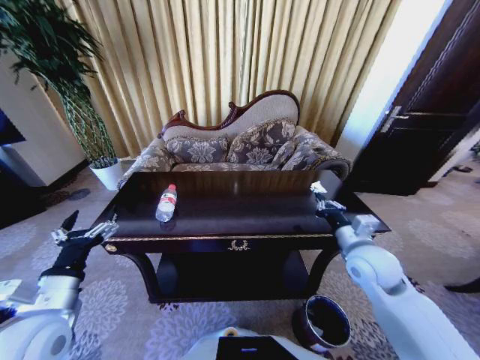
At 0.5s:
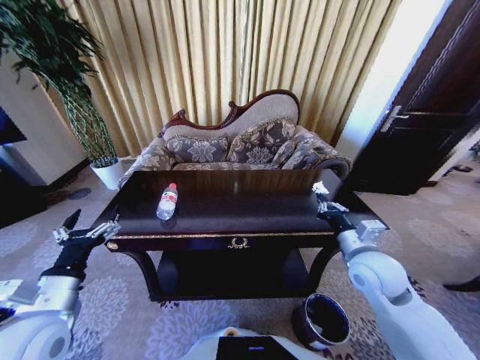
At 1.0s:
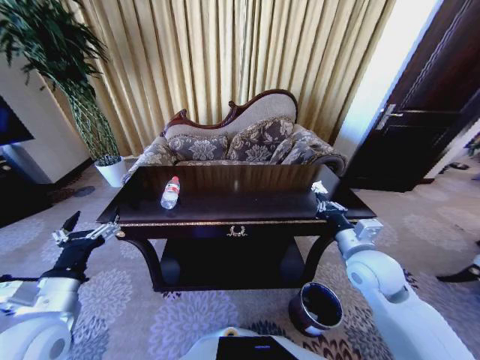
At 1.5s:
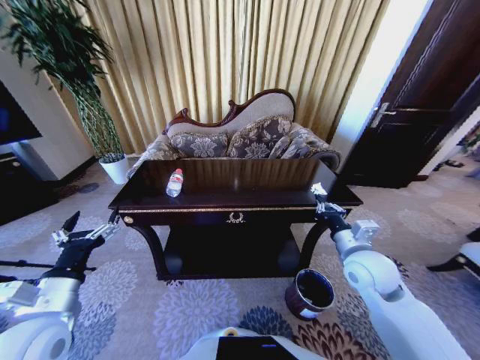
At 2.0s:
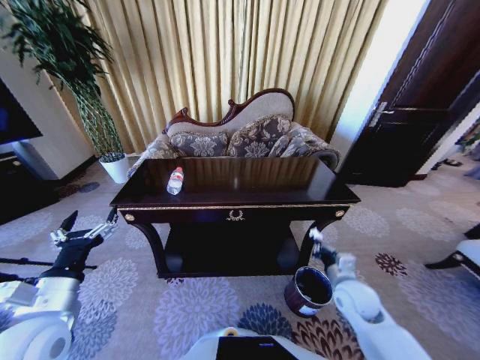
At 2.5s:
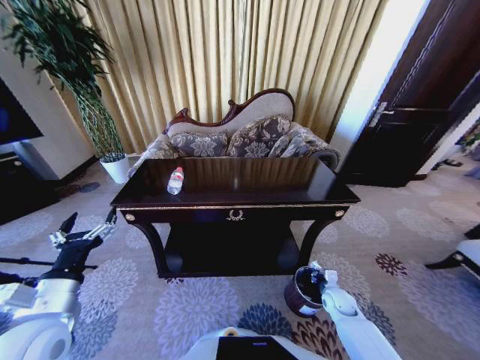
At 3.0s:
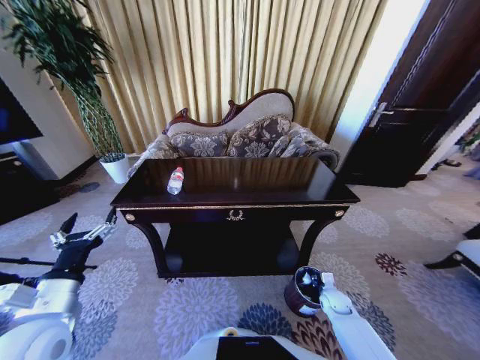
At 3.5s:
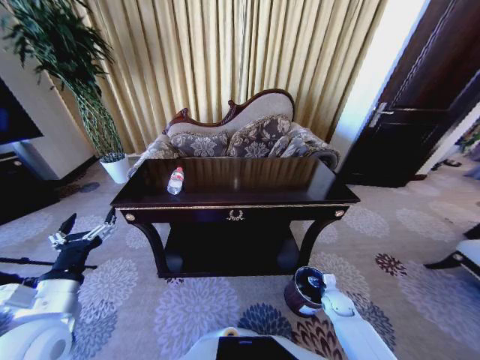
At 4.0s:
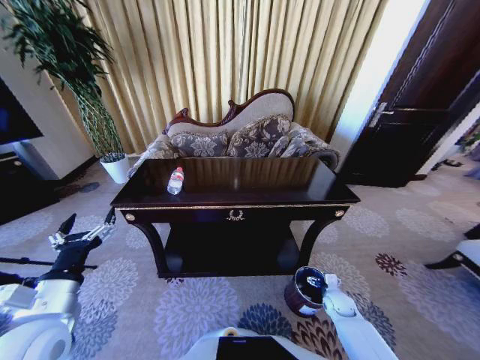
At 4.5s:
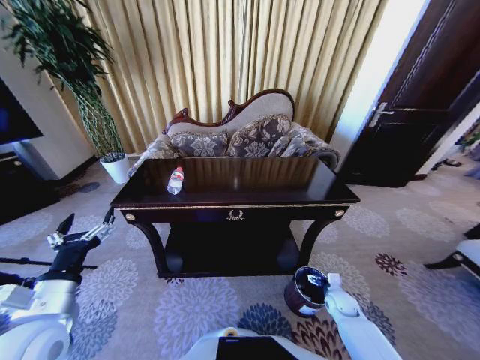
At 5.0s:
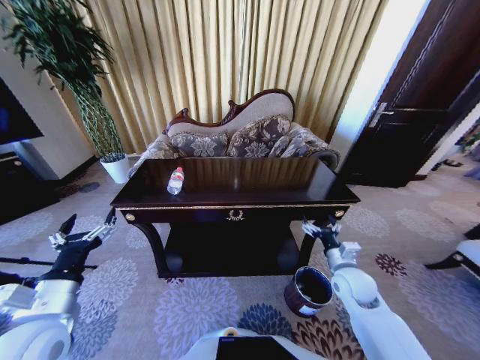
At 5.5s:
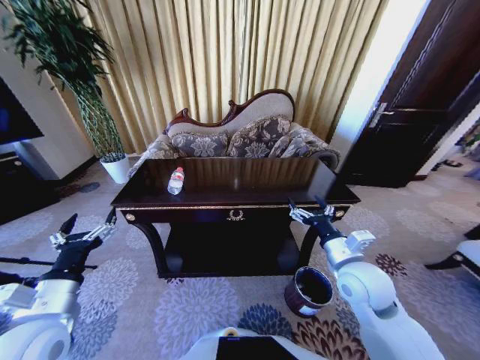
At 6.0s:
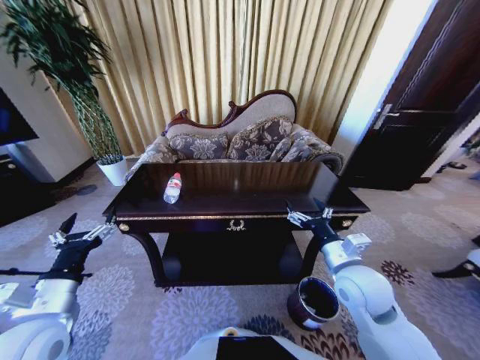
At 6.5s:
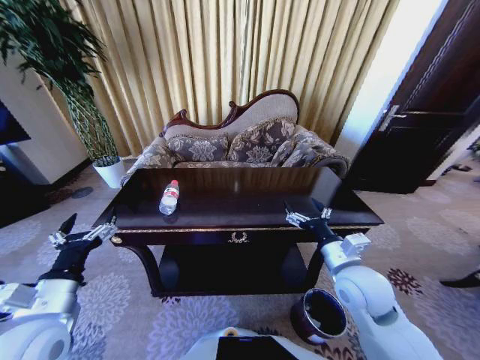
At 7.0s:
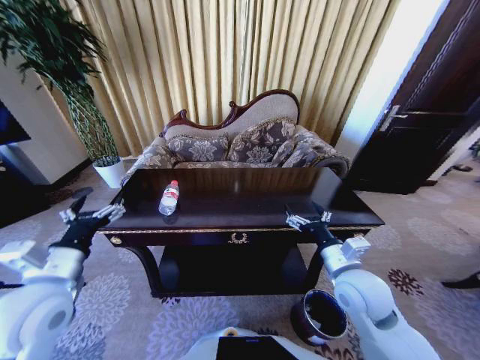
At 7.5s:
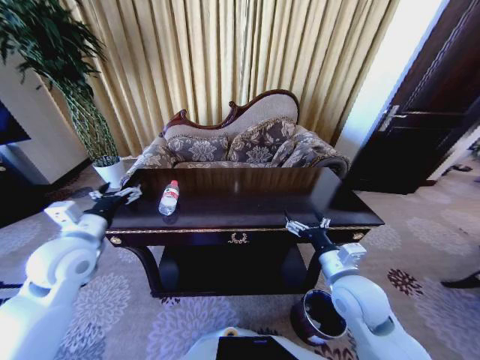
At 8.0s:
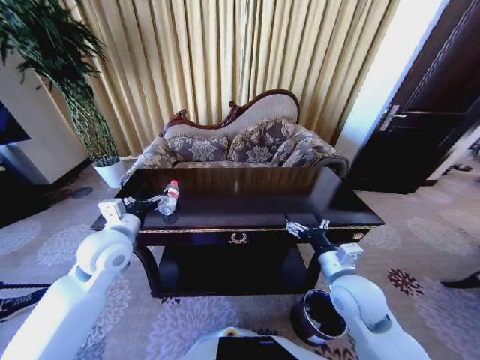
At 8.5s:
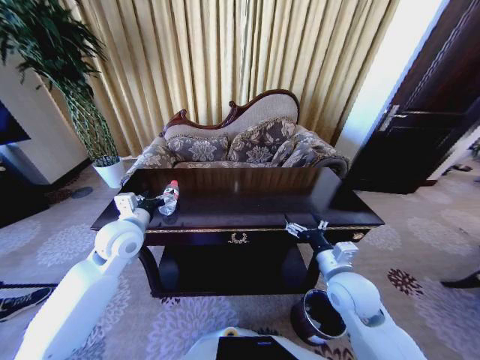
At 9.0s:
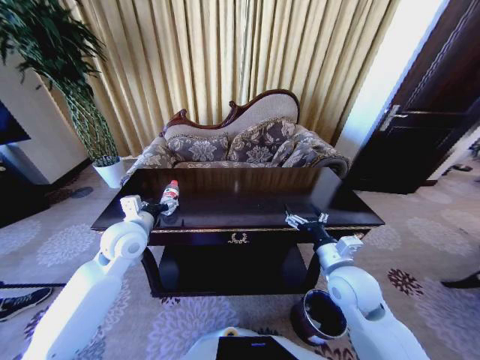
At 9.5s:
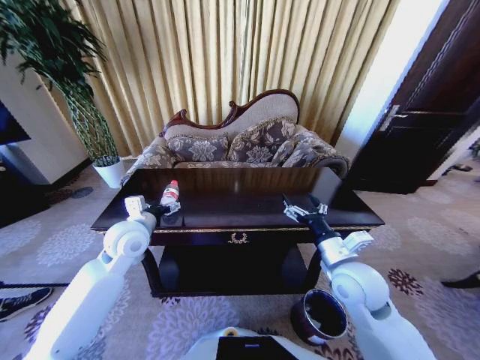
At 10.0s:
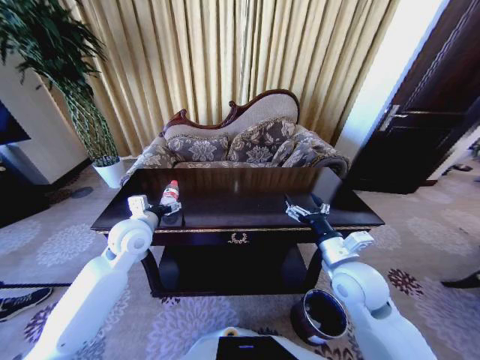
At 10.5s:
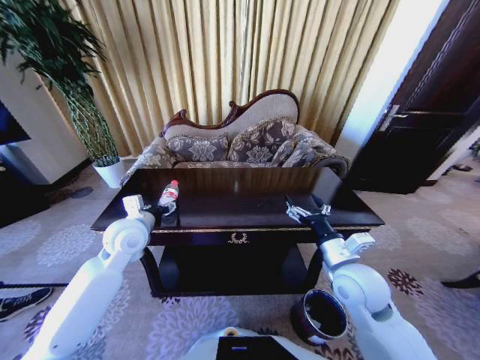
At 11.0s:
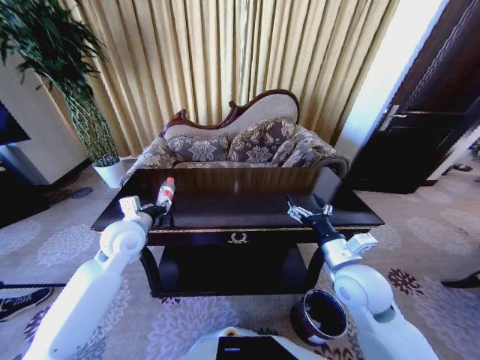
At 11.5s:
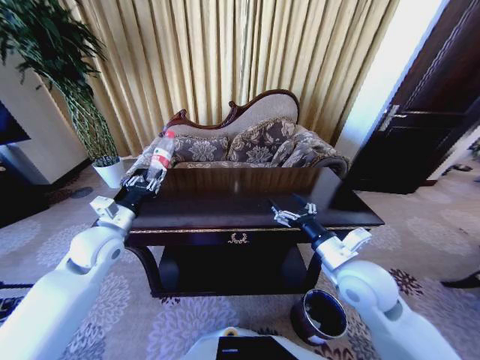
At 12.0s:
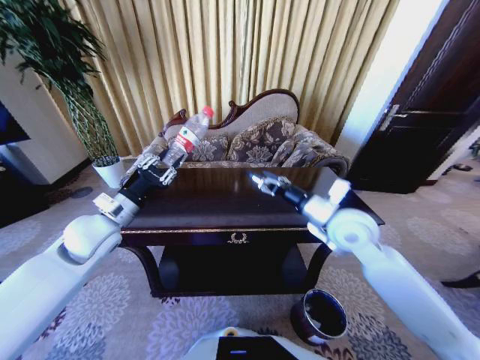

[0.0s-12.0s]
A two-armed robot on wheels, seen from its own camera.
Task of the whole recording: Move to the front of the table and place the trash on the table into the trash bin.
0.0s to 2.0s: The right gripper goes some 10 cm downward.
2.0s to 4.0s: The right gripper travels downward by about 20 cm, and opens its fingers.
4.0s to 6.0s: The right gripper moves upward, some 30 cm.
6.0s to 8.0s: The left gripper moves forward, about 15 cm.
8.0s to 10.0s: The left gripper moves approximately 5 cm.
10.0s to 12.0s: The right gripper is displaced forward and upward by some 10 cm. The left gripper travels to the left by some 5 cm, and closes up.

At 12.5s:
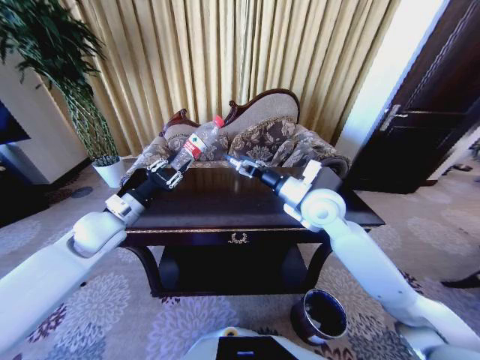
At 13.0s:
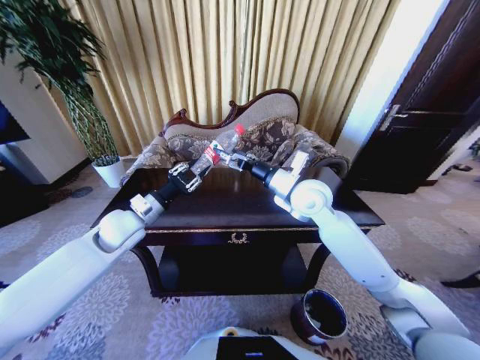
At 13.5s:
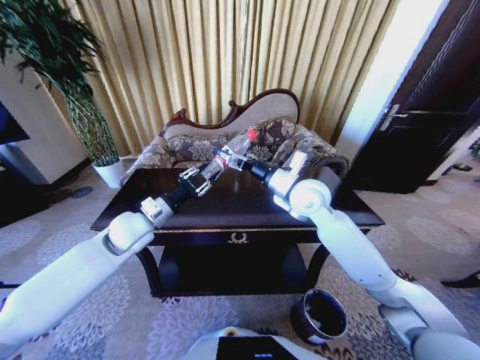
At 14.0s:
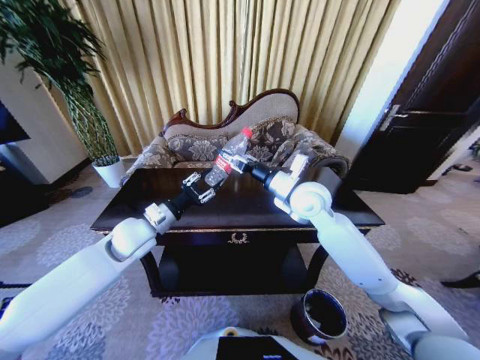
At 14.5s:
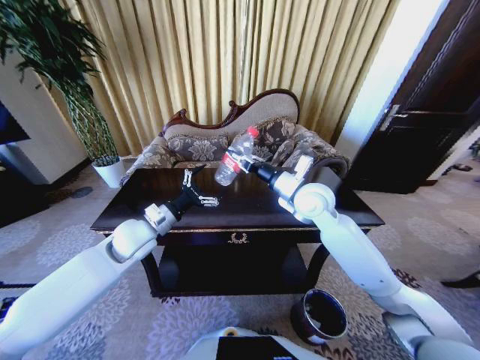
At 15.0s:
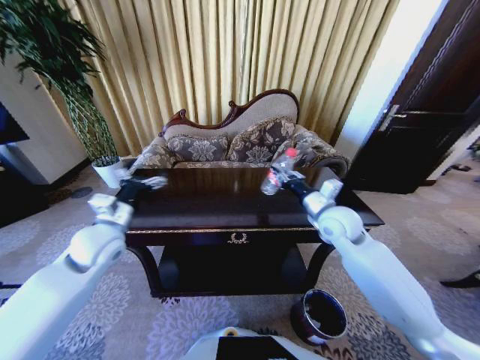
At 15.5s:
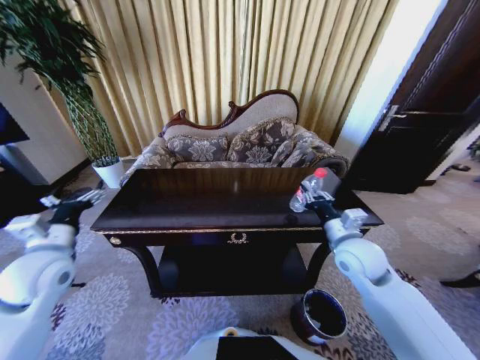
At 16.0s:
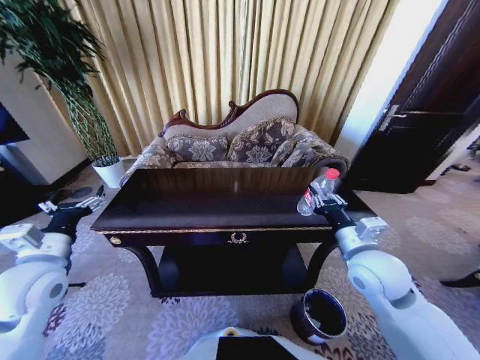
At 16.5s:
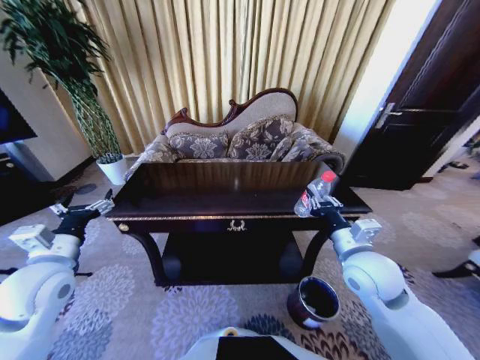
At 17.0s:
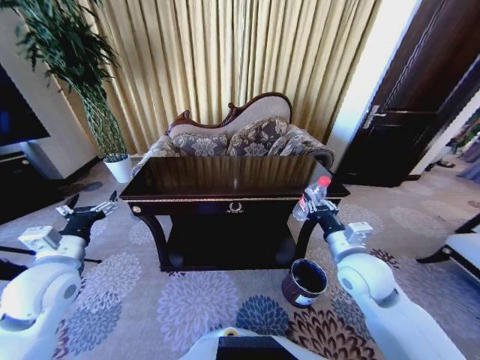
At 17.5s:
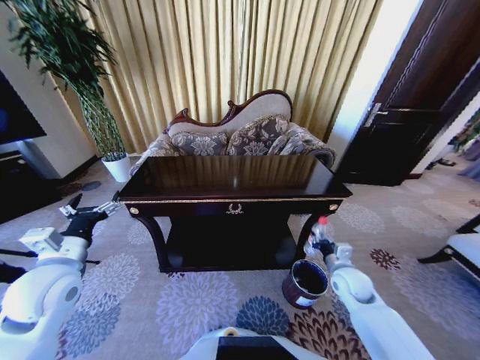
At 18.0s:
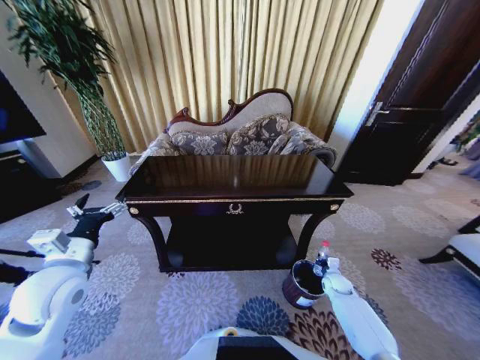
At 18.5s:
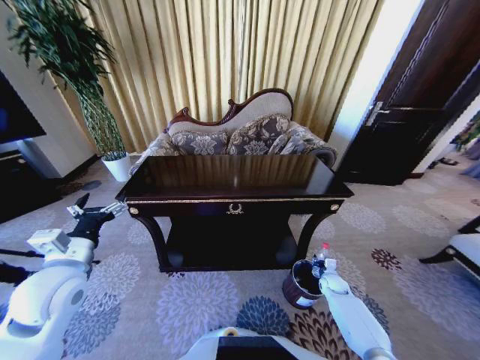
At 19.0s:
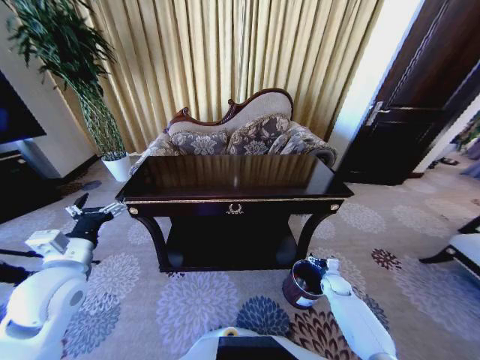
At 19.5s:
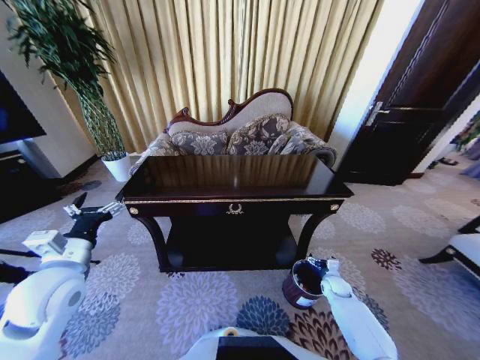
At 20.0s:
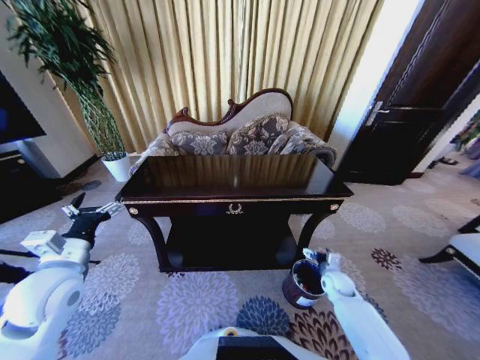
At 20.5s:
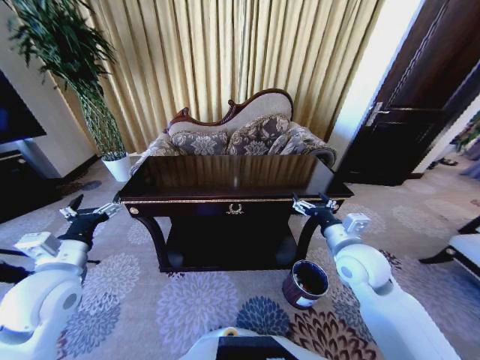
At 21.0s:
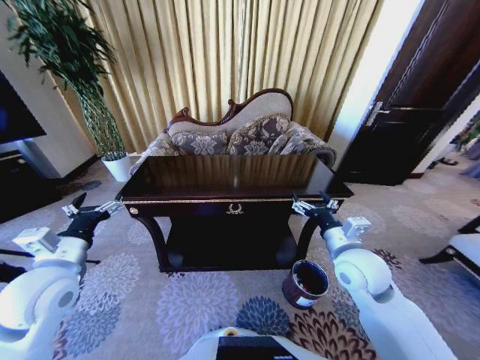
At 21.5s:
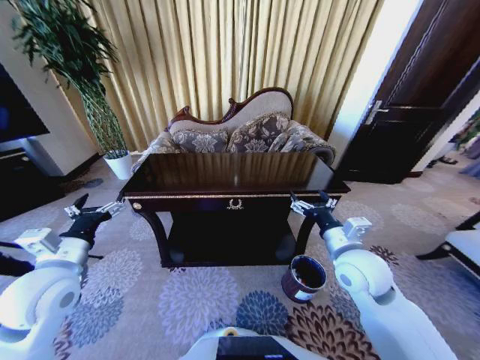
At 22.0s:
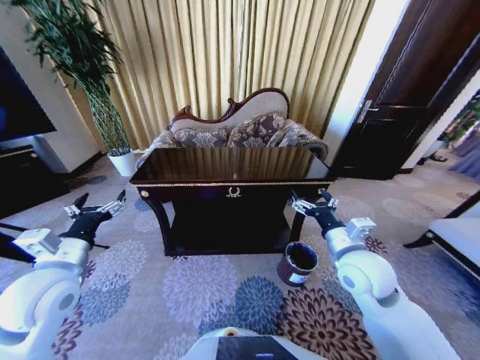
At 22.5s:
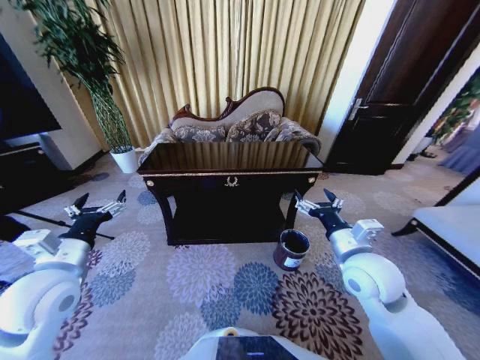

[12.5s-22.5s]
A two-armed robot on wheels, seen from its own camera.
Task of the whole recording: Move to the front of the table and place the trash on the table into the trash bin.
12.5s to 14.5s: The right gripper closes its fingers. Meanwhile the left gripper is displaced to the right by some 5 cm, and opens up.
14.5s to 16.5s: The left gripper goes approximately 15 cm to the left and backward. The right gripper is displaced backward, to the right and downward by approximately 20 cm.
16.5s to 18.5s: The right gripper goes approximately 35 cm downward.
18.5s to 20.5s: The right gripper is displaced upward by about 35 cm, and opens its fingers.

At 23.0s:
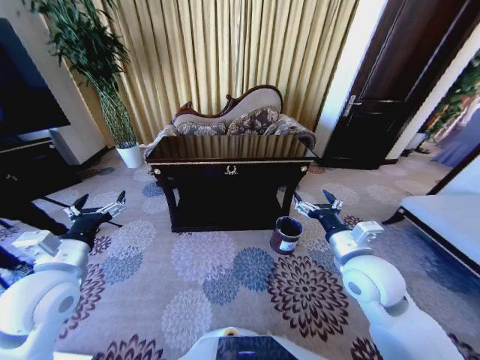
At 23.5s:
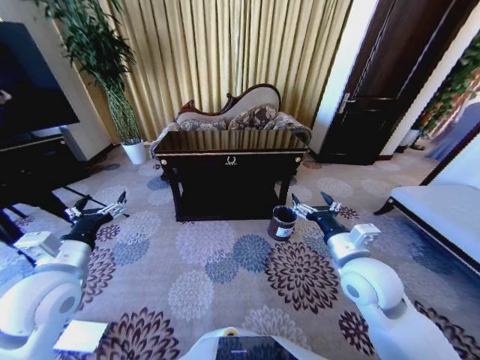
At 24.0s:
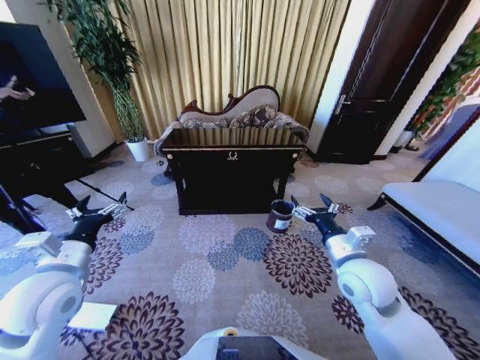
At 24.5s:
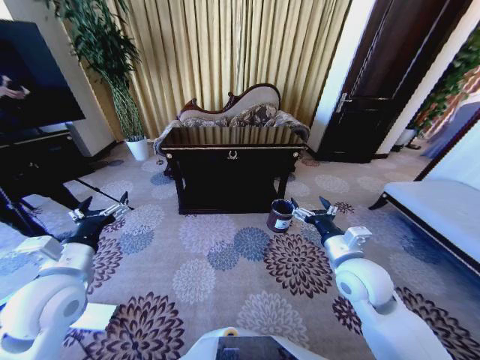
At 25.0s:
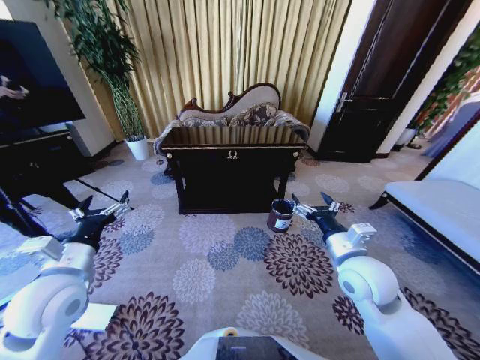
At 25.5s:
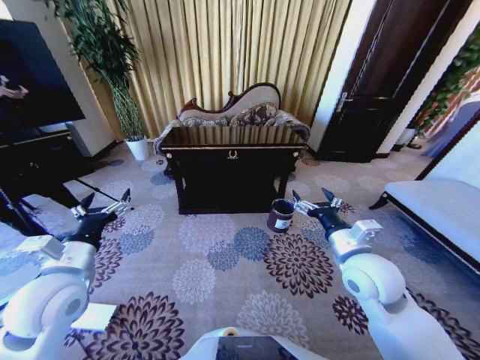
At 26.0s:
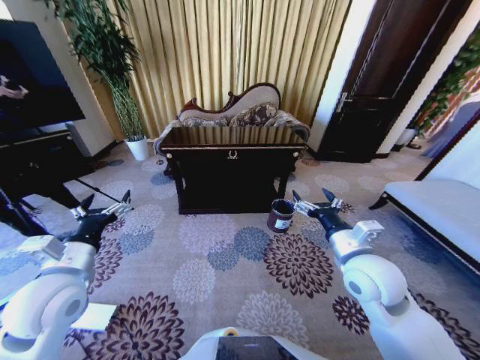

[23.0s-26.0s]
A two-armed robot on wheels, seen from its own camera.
Task of the whole recording: Move to the front of the table and place the trash on the table into the trash bin.
24.5s to 26.0s: There are only small adjustments of the grippers.
